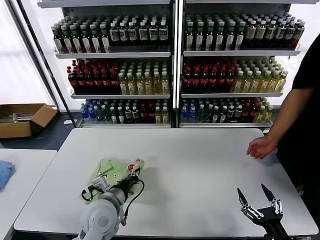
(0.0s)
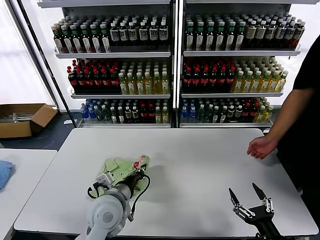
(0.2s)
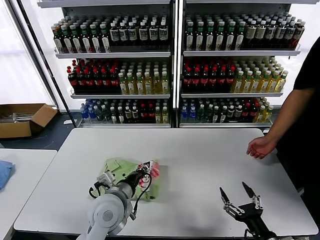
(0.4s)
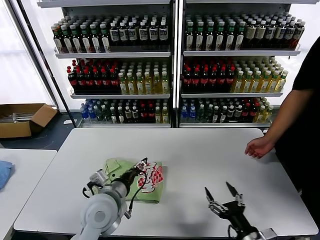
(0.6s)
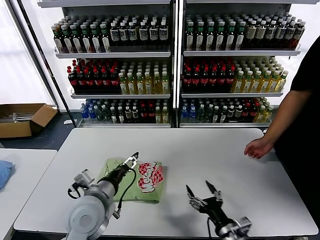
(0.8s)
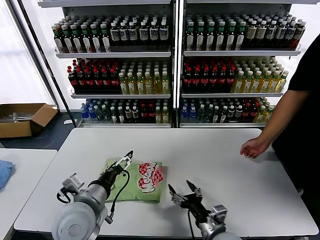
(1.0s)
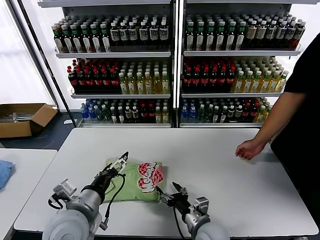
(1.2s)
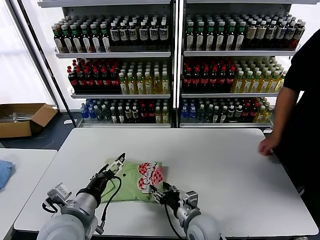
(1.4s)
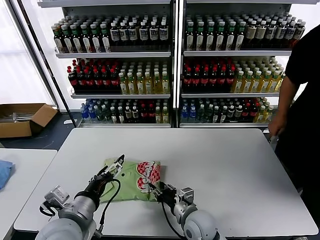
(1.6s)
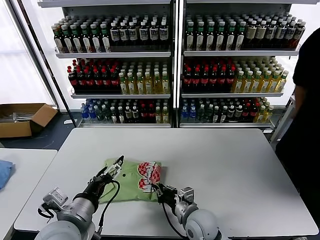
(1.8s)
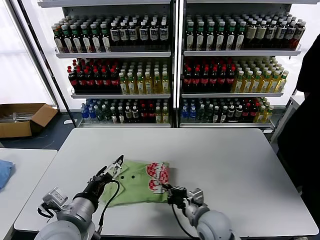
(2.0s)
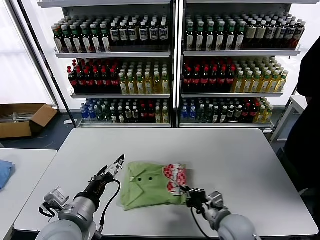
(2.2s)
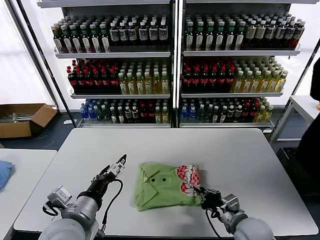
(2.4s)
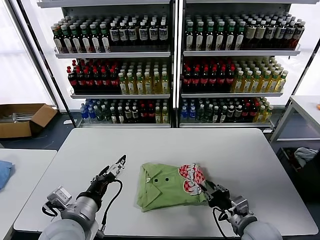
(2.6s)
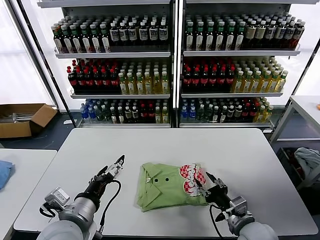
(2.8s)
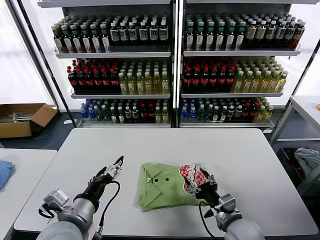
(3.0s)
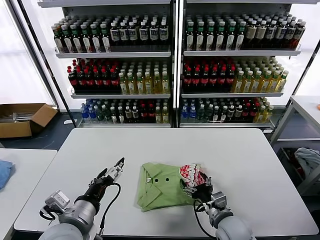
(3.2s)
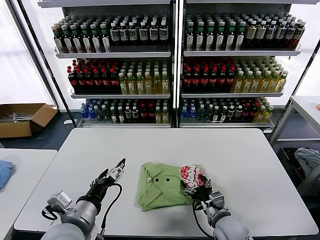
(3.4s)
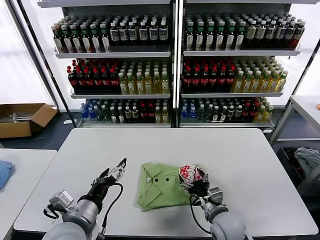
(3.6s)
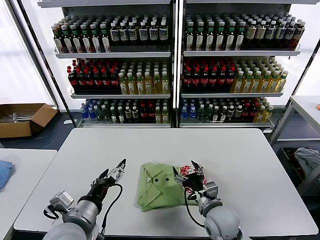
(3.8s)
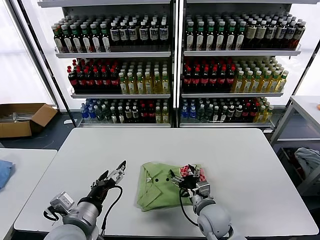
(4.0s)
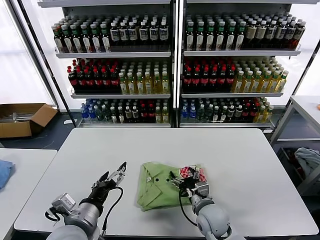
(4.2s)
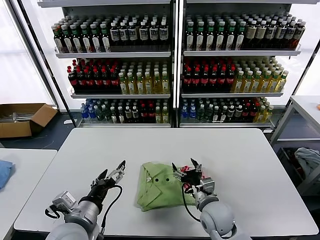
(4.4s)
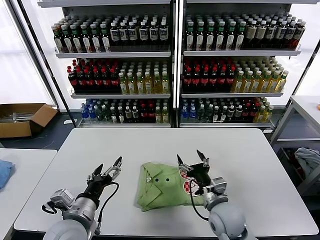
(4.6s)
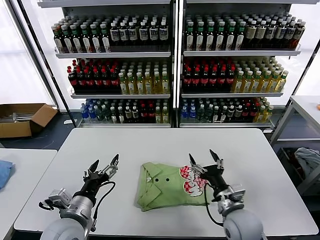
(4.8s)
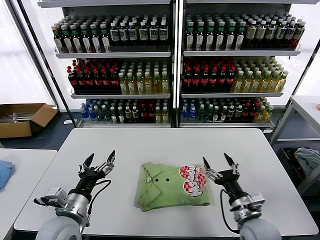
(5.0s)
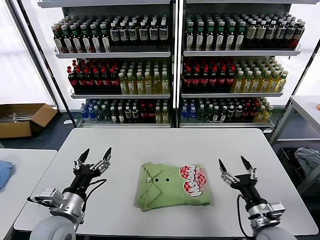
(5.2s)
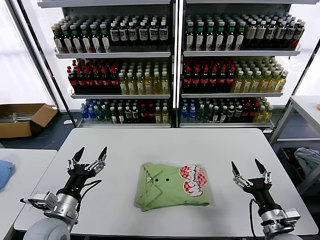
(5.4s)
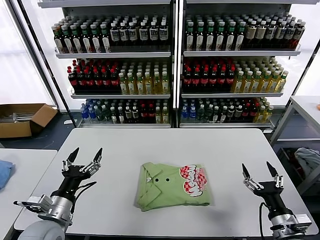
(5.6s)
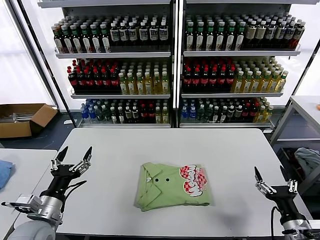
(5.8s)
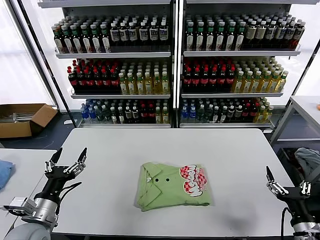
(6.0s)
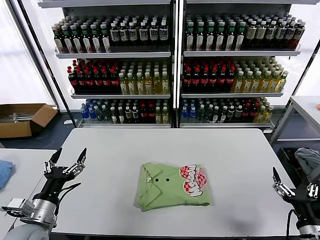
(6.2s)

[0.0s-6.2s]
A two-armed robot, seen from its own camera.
Task of the whole recording: fold and organize the clothes.
Step, 0.6s to 4.2s: Drag the clothes to the center of the table.
0.0s to 1.6s: The left gripper goes about 10 cm upward and backward, and opens its fingers. Meanwhile the right gripper moves to the left and forward, approximately 30 cm, and closes its fingers.
1.6s to 3.2s: The right gripper heads to the right, covering about 10 cm, and opens.
3.2s to 4.6s: The right gripper ends up about 5 cm from where it was.
4.6s to 6.2s: The right gripper is displaced to the right and backward by approximately 25 cm. Meanwhile the left gripper heads to the left, covering roughly 10 cm.

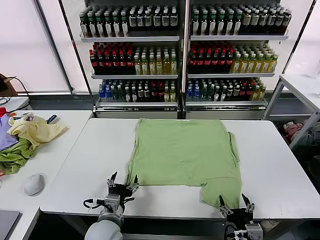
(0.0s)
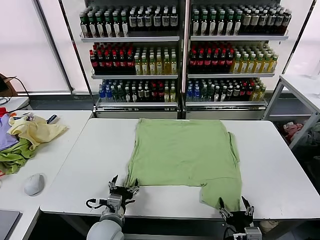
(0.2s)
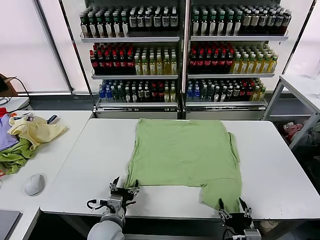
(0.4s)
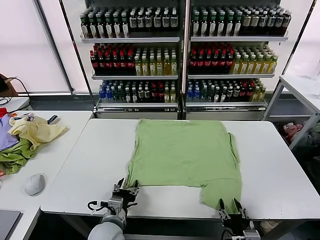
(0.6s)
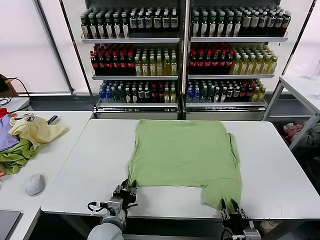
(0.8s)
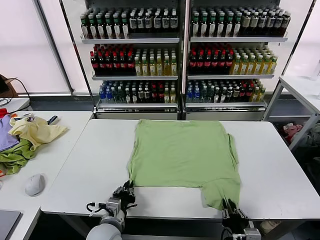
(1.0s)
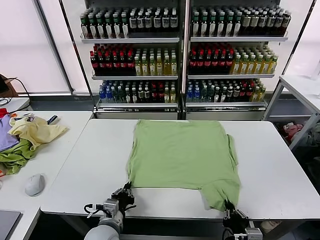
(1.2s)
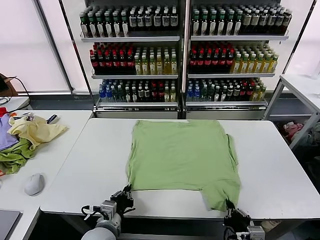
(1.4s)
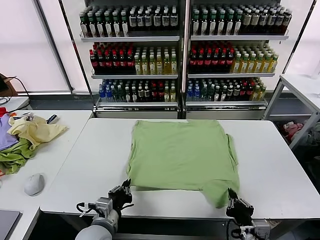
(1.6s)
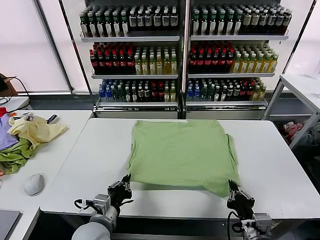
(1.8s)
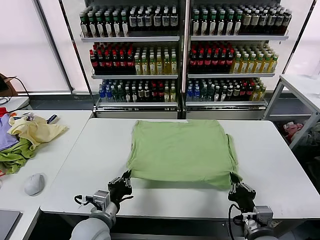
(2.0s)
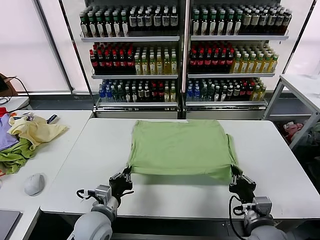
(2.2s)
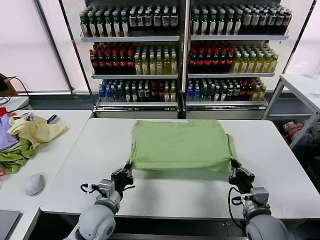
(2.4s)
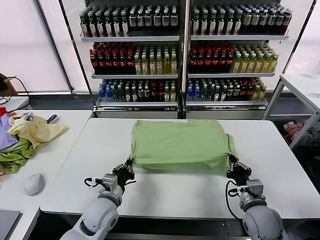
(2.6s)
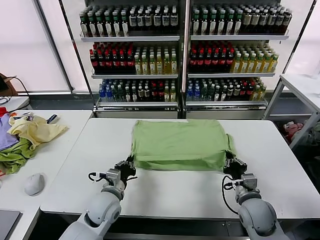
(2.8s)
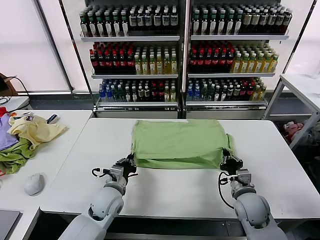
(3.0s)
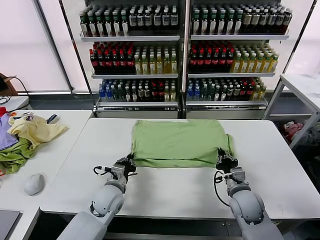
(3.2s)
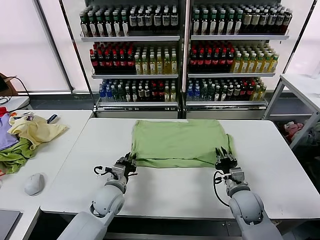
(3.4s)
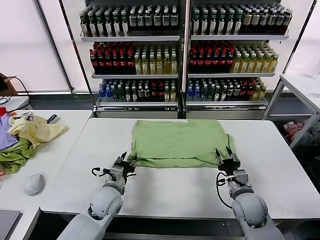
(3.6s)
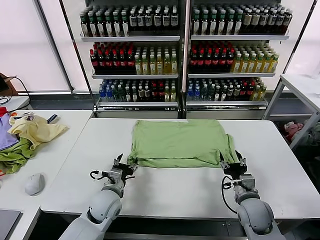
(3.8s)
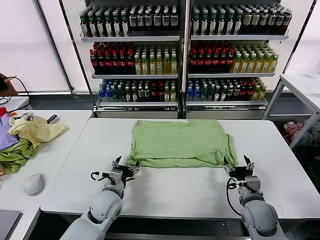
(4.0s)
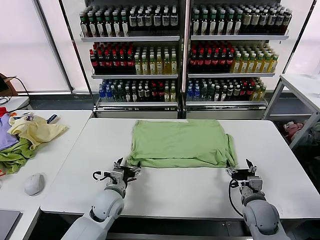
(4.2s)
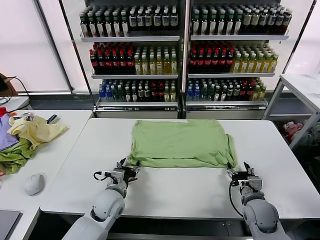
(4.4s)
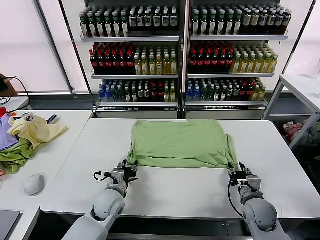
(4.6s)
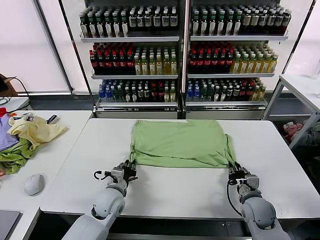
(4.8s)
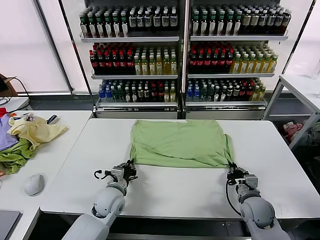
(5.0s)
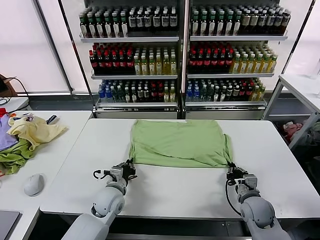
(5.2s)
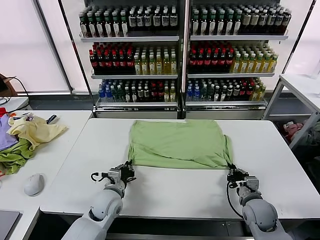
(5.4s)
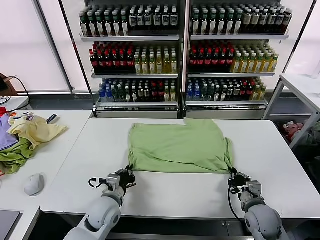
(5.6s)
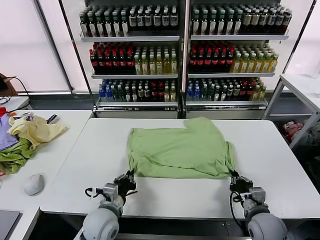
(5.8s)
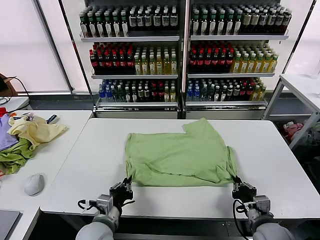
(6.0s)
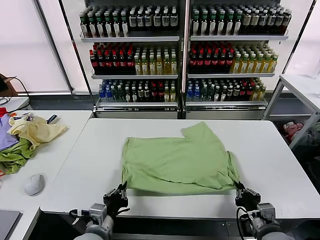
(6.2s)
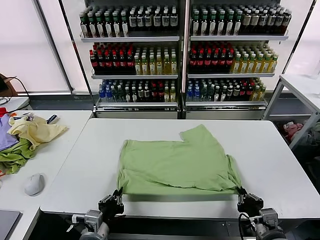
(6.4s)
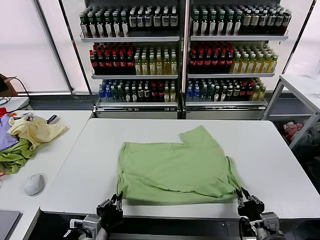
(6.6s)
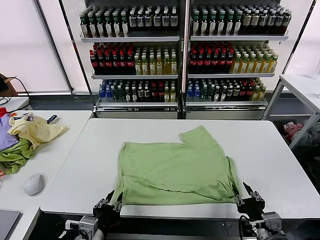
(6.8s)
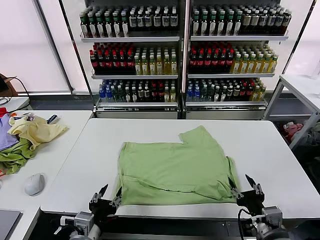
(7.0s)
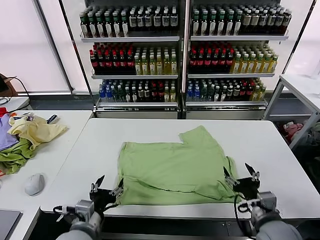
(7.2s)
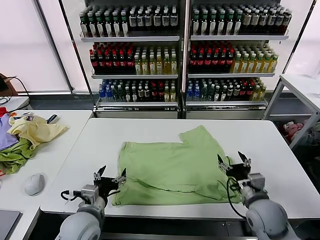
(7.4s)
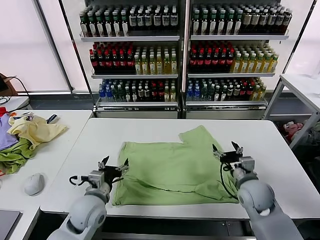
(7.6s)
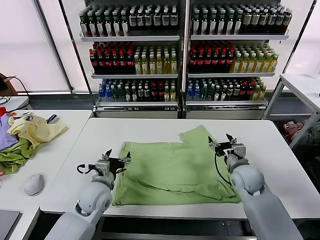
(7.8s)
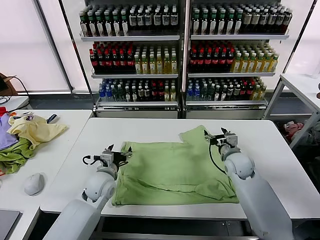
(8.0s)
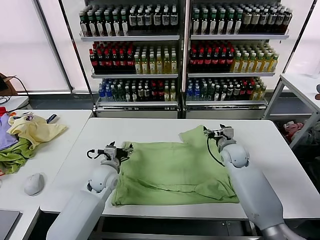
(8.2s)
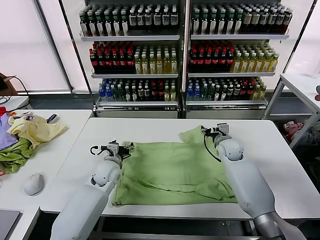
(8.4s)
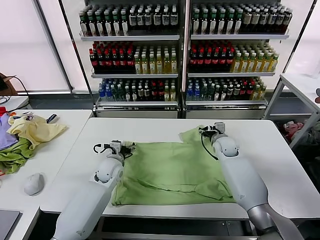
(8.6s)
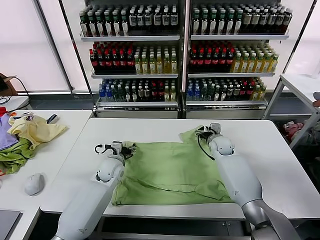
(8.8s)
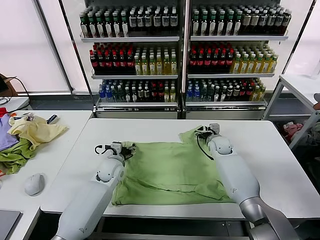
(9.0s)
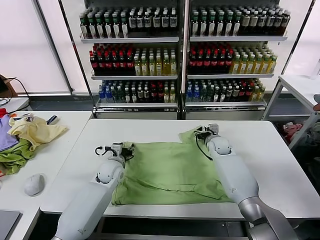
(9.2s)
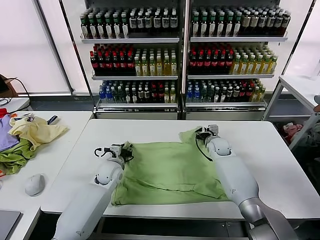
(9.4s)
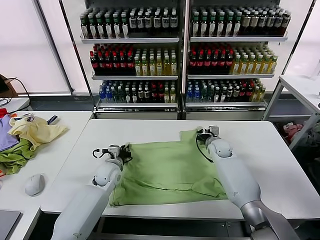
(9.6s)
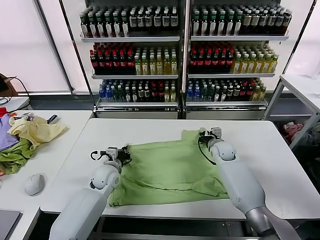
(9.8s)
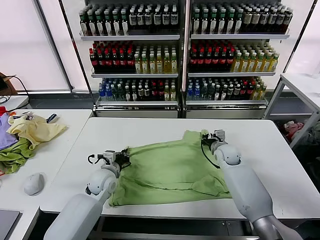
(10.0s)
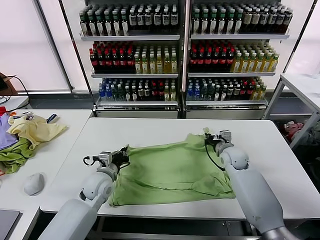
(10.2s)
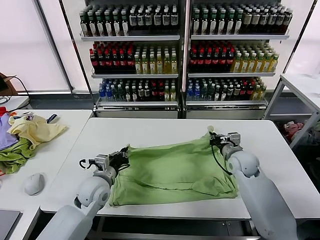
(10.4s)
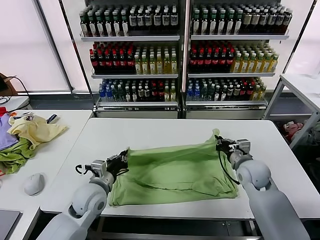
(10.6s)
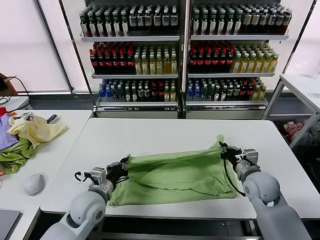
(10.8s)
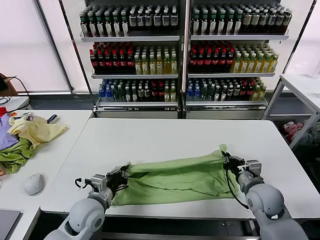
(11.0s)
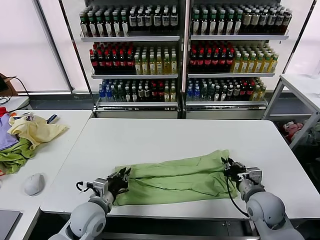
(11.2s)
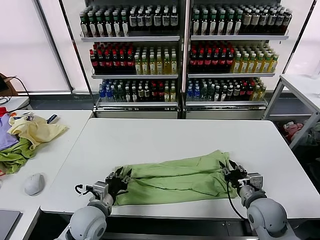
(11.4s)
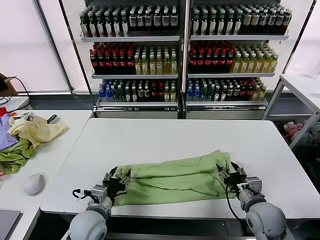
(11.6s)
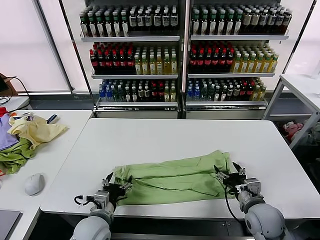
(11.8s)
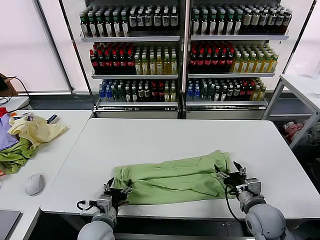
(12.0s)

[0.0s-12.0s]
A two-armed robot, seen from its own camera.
Task of the whole recording: fold and organize the clothes.
Step, 0.0s to 1.2s: use both grippers simultaneously to clamp the lower edge of the clothing fabric.
Step, 1.4s to 3.4s: use both grippers to drag the lower edge of the fabric forward and fold it over the upper edge.
Step, 3.8s to 6.6s: Drag the clothes downward with both gripper.
Step, 7.0s to 9.8s: use both grippers simultaneously to clamp the upper edge of the clothing fabric.
Step, 10.2s to 11.4s: use both grippers to drag the upper edge of the fabric backward and fold it over the lower edge.
1.6s to 3.0s: Both grippers travel together forward, about 15 cm.
3.0s to 4.4s: The left gripper opens, while the right gripper ends up approximately 5 cm from where it was, and opens up.
4.4s to 6.0s: The two grippers go approximately 10 cm backward. The left gripper closes its fingers; the right gripper closes.
6.0s to 7.6s: The left gripper heads forward, covering about 10 cm, and opens its fingers. The right gripper goes some 15 cm forward, and opens.
7.6s to 9.0s: Both grippers travel together forward, approximately 20 cm.
9.0s to 10.4s: The left gripper travels backward by about 10 cm, and closes its fingers. Meanwhile the right gripper goes about 15 cm backward and upward, and closes up.
10.4s to 12.0s: The grippers both shift backward by some 15 cm. The right gripper opens up. The left gripper opens up.

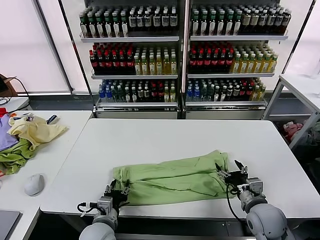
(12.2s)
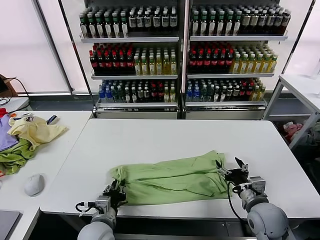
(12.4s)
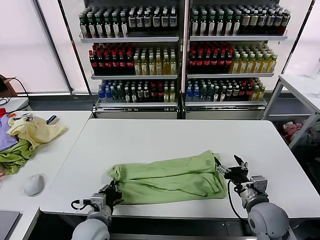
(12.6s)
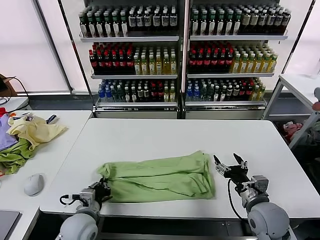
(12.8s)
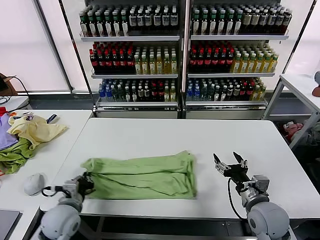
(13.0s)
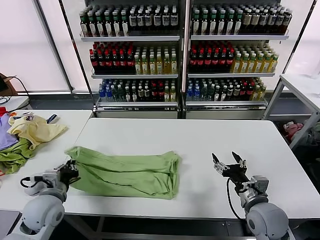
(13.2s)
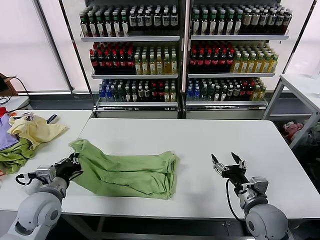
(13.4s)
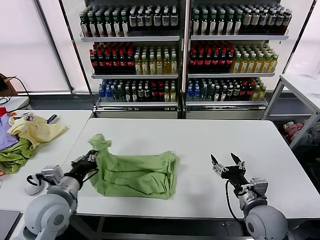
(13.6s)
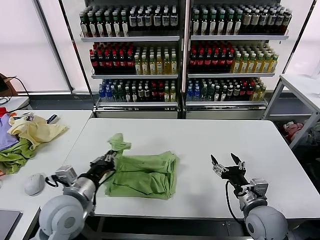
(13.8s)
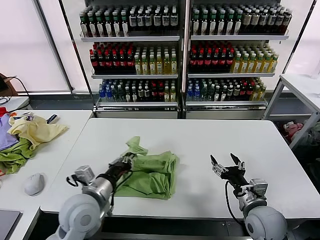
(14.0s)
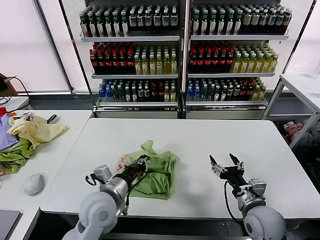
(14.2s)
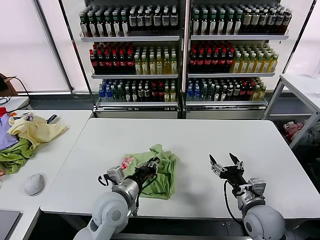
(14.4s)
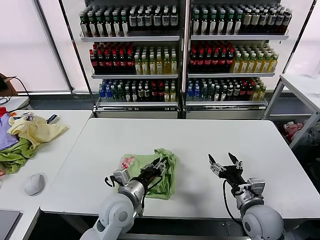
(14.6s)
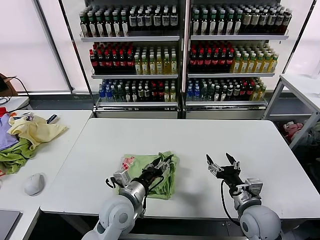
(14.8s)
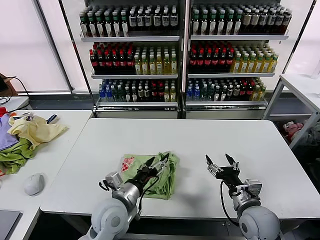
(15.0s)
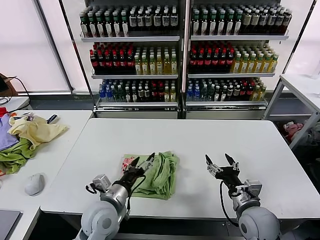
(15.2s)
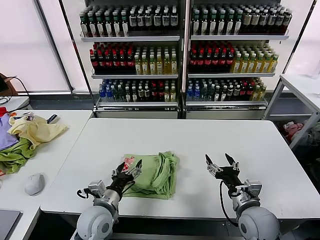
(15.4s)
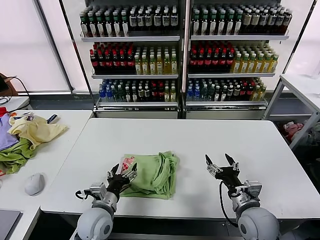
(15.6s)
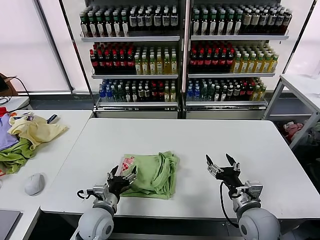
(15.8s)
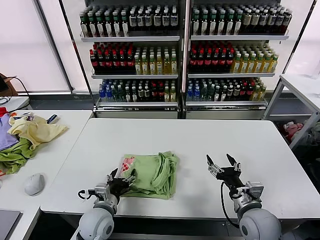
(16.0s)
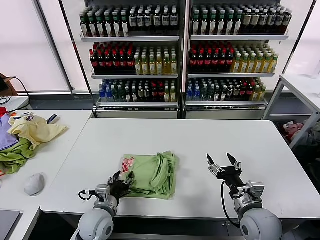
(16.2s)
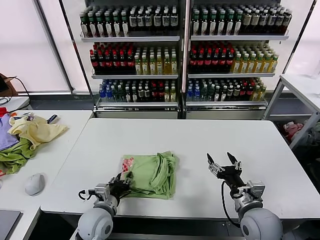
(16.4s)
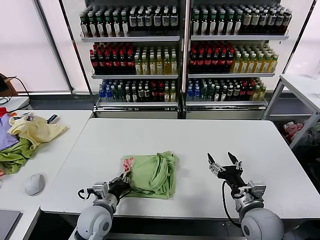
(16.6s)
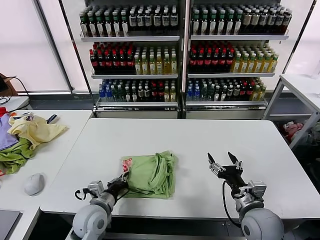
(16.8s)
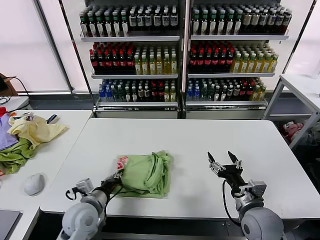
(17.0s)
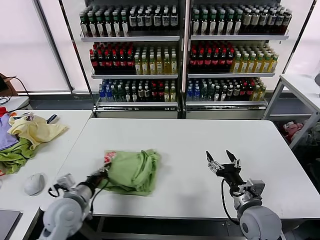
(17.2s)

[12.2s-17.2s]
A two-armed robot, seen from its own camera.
Task of the whole recording: fold and organize the clothes.
Step, 12.8s to 14.8s: use the left gripper to drag the left edge of the fabric to the left and folds it over the right edge.
12.2s to 13.8s: The left gripper heads upward and to the left, covering approximately 15 cm, and closes.
13.8s to 15.6s: The left gripper goes approximately 10 cm downward, and opens its fingers.
15.6s to 17.2s: The left gripper moves to the left, approximately 10 cm, and closes its fingers.
